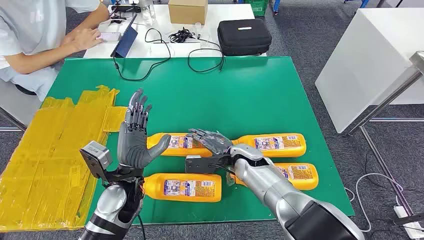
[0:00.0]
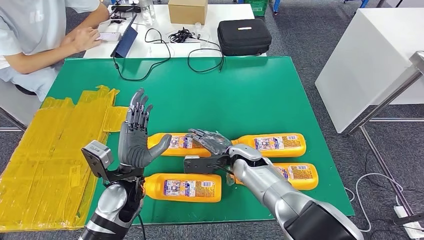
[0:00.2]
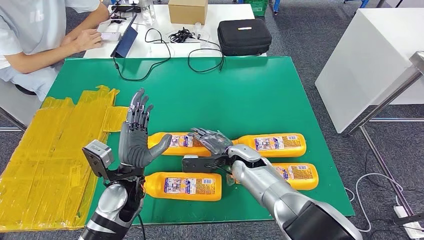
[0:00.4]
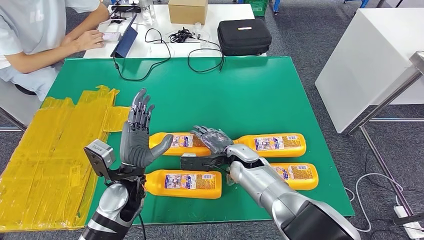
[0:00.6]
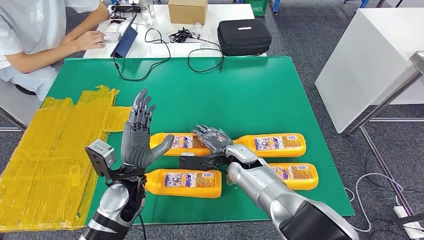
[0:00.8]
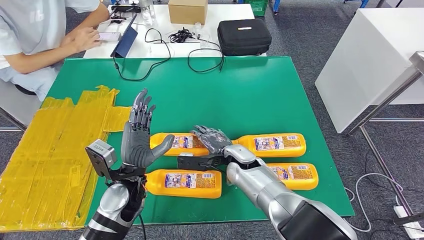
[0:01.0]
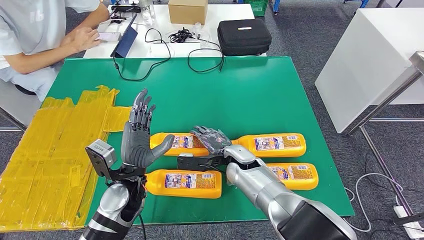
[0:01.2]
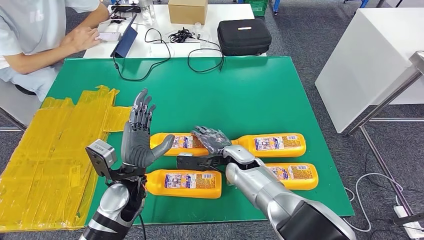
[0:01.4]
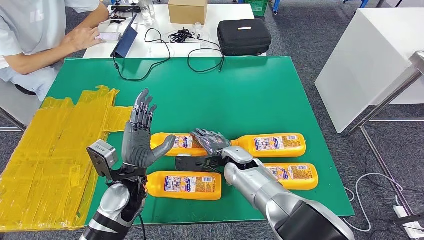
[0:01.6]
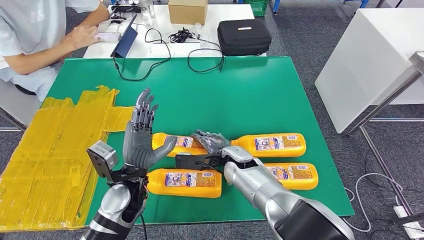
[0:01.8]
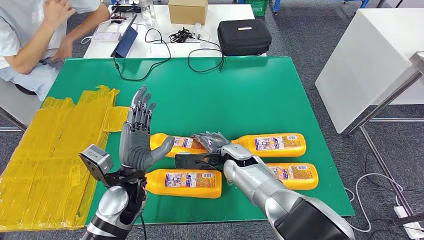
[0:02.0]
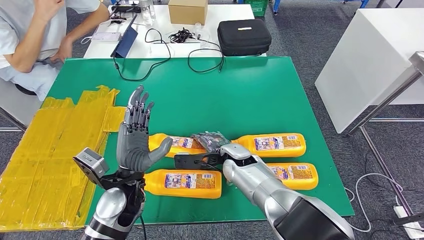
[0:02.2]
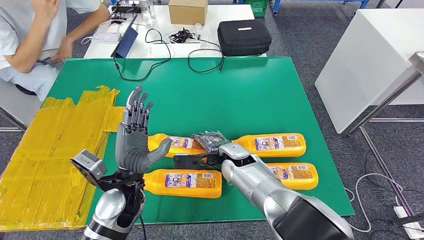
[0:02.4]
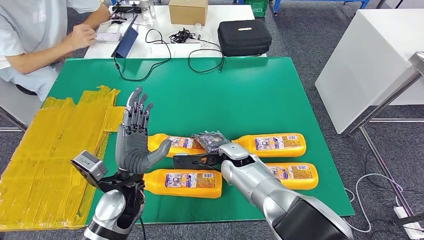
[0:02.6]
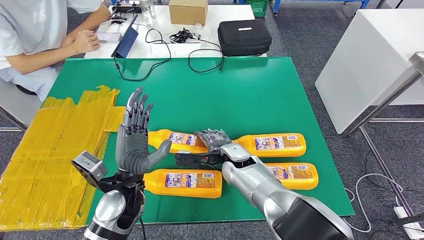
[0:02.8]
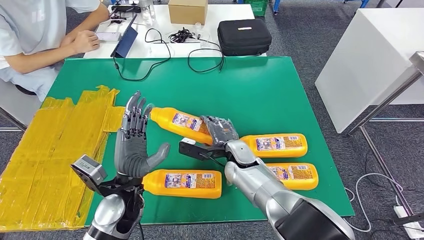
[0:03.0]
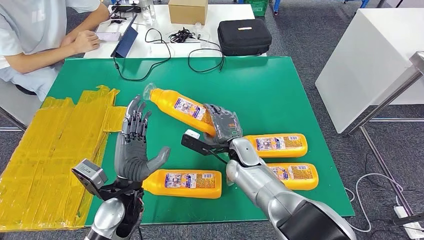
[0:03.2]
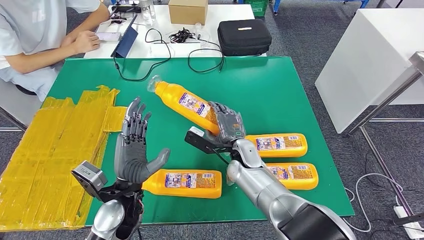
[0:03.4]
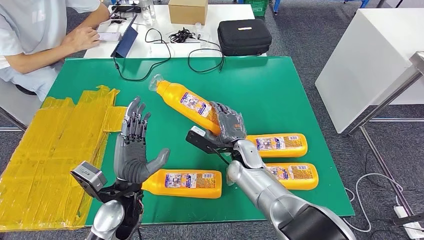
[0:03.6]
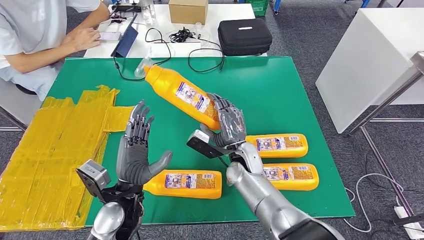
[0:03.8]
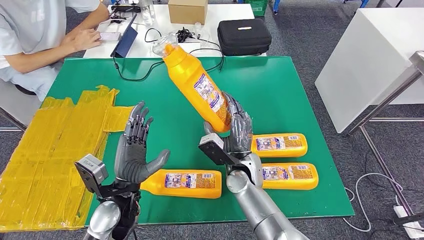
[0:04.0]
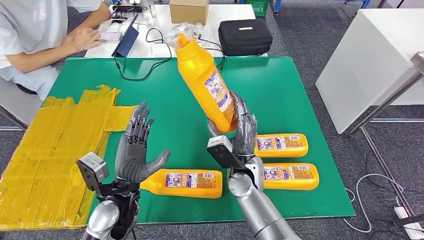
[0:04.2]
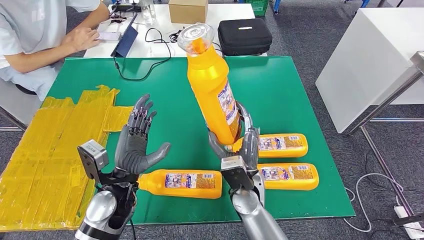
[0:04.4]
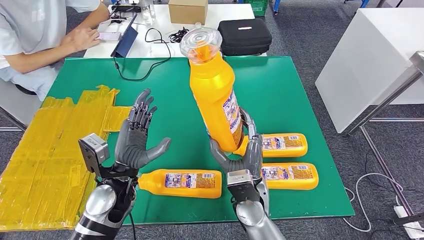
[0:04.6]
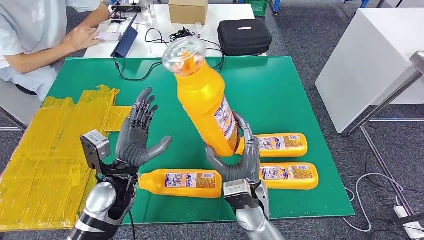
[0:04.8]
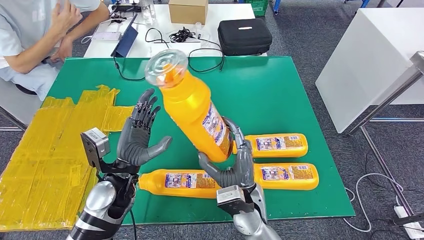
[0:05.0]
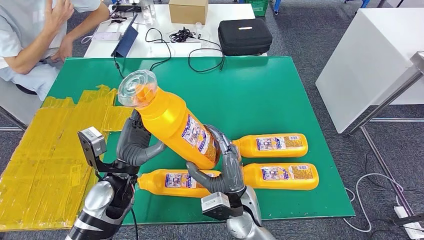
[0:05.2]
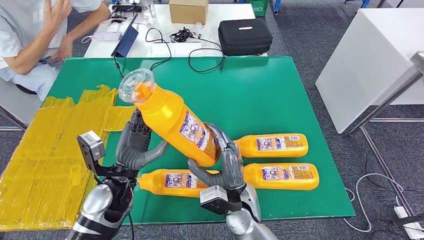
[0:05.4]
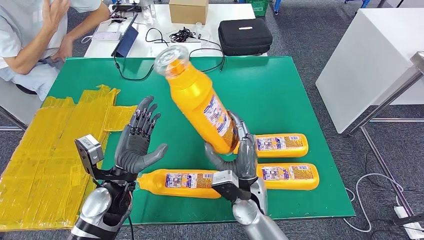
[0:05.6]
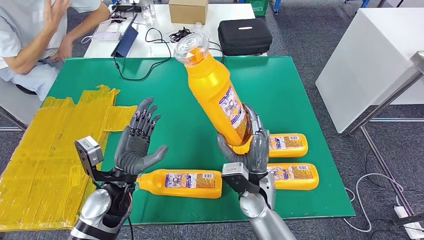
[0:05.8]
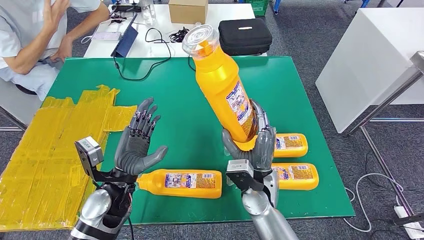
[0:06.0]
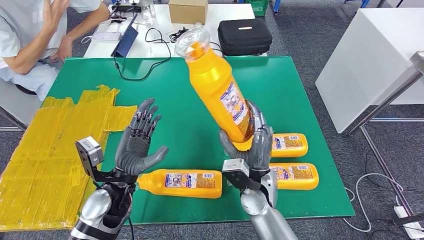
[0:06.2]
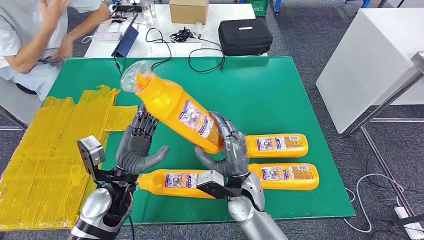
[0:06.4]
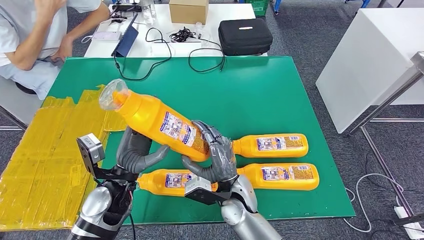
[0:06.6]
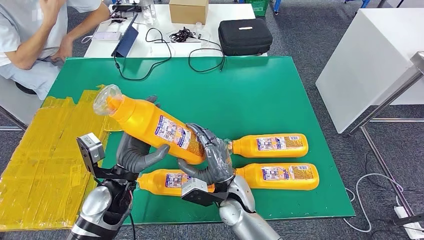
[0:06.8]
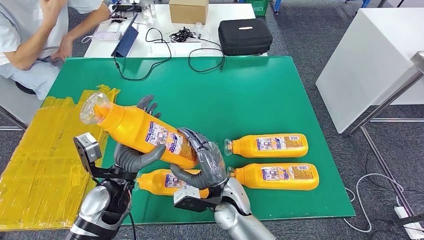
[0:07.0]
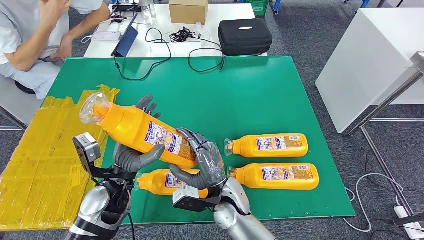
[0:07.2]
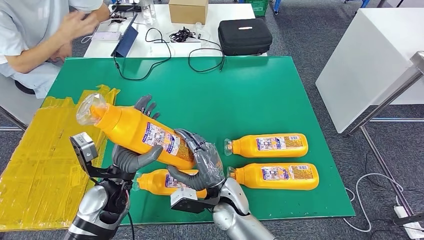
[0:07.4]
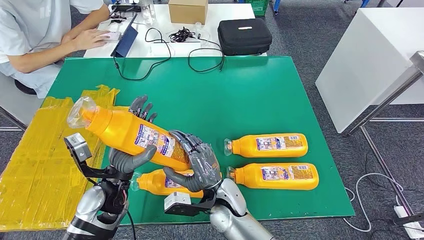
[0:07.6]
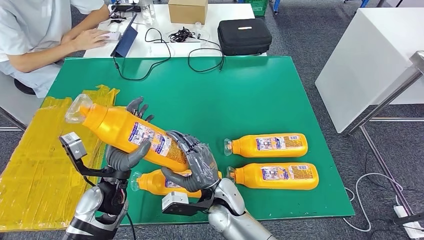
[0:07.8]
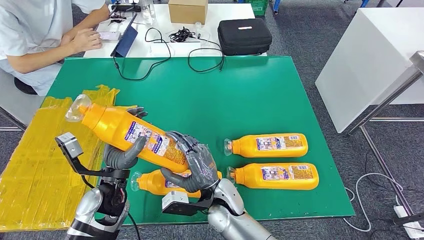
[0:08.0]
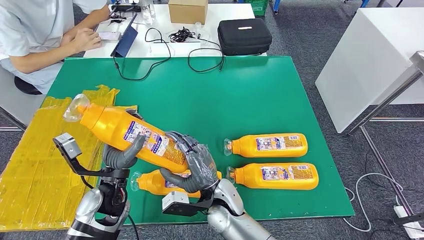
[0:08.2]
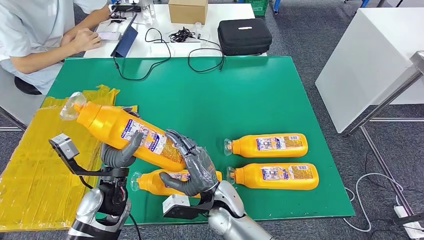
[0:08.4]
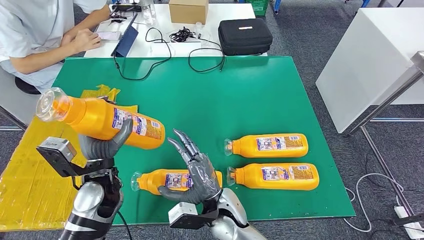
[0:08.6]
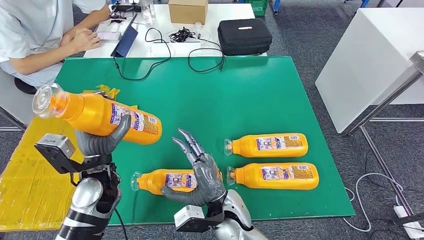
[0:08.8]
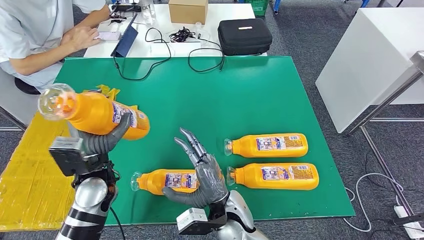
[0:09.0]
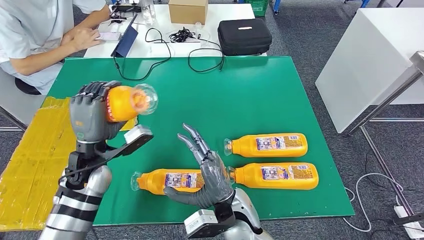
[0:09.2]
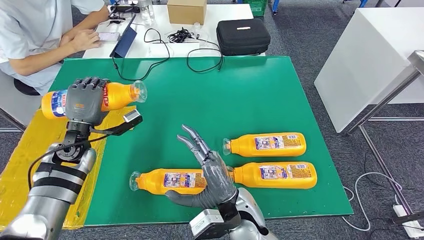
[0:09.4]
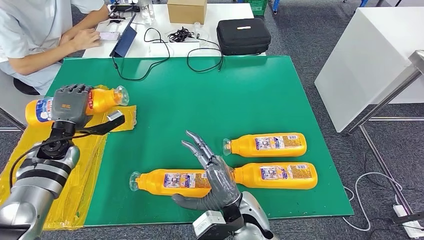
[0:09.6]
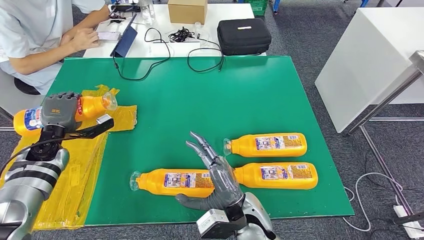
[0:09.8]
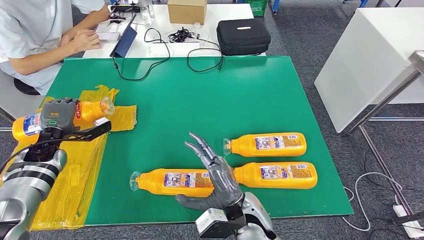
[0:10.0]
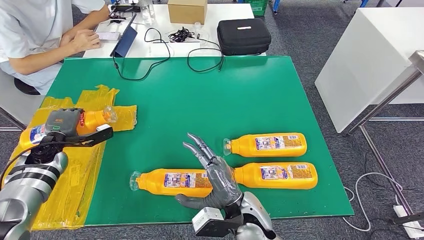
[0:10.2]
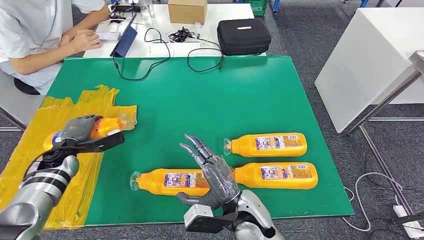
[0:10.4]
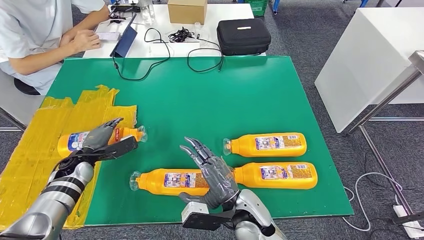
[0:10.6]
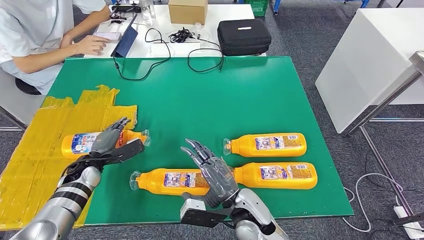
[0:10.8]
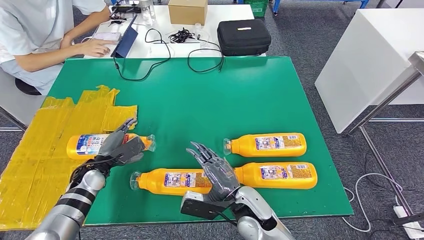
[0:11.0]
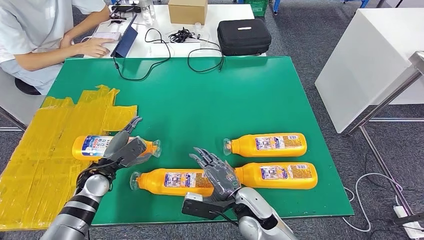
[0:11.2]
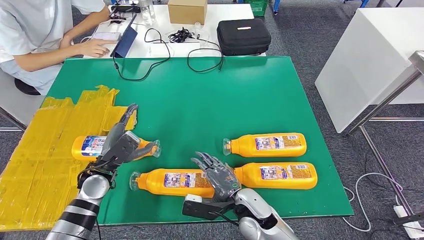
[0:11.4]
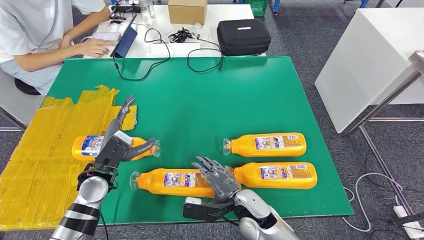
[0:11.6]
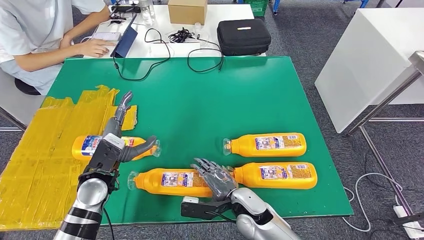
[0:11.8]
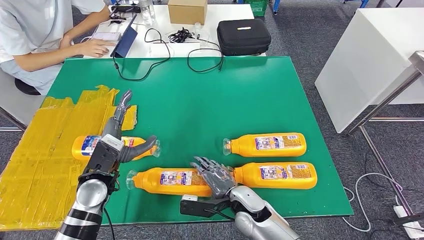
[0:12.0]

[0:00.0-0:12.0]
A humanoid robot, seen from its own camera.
Step, 0:00.0 to 0:04.4: Take the fast-moving consumer goods bottle from the table.
Step, 0:07.0 to 0:11.8: Flip the fast-moving consumer goods bottle to the front side.
0:01.6 to 0:03.0: The hands move only a little.
0:03.0 to 0:04.4: The right hand moves backward, approximately 10 cm.
0:04.4 to 0:06.0: The hands make only small movements.
0:09.0 to 0:10.4: The left hand goes approximately 20 cm to the left, forward and downward.
0:10.4 to 0:12.0: The left hand heads to the right and backward, covering roughly 20 cm. Meanwhile the right hand moves downward, about 5 cm.

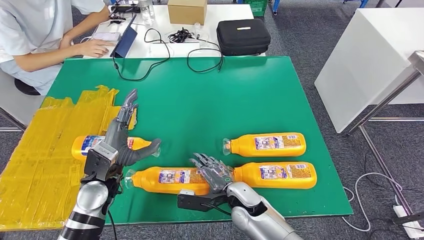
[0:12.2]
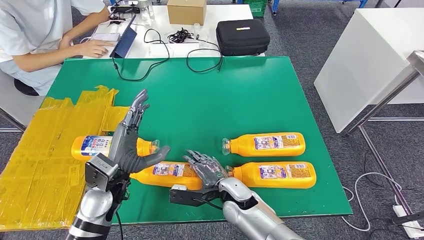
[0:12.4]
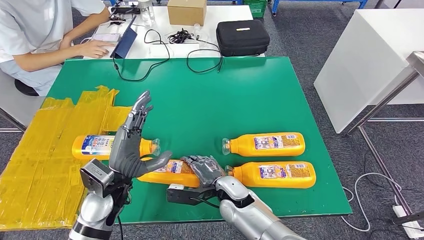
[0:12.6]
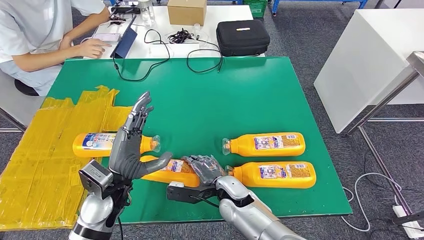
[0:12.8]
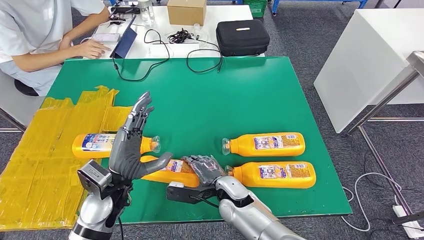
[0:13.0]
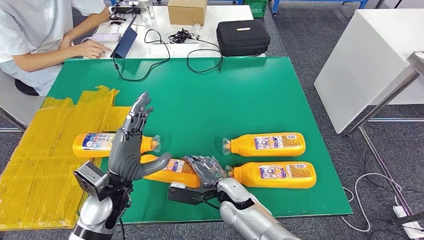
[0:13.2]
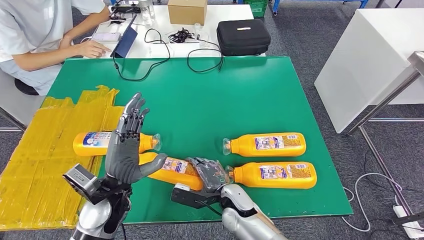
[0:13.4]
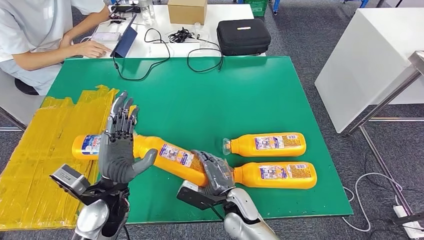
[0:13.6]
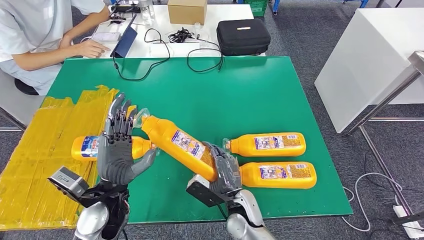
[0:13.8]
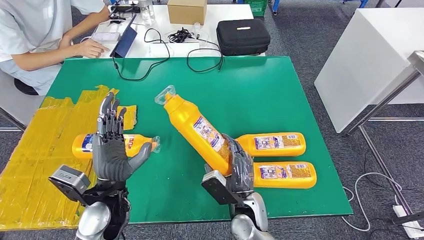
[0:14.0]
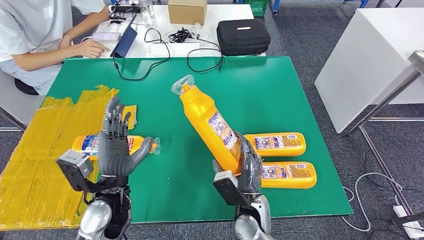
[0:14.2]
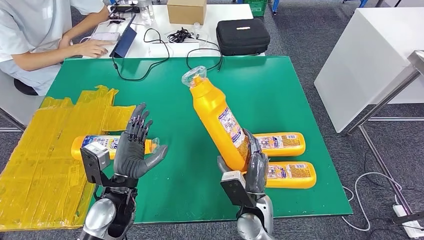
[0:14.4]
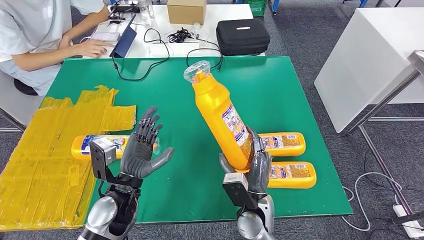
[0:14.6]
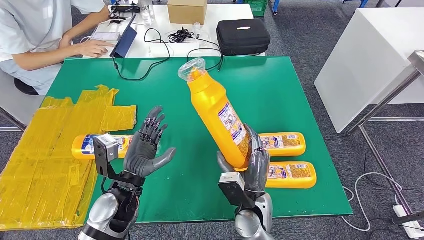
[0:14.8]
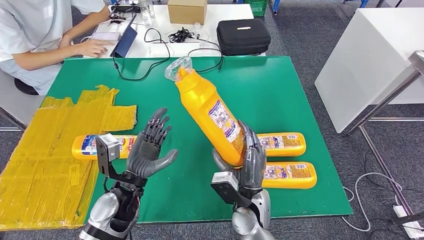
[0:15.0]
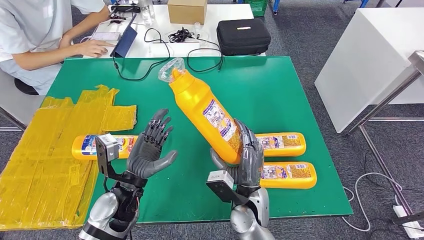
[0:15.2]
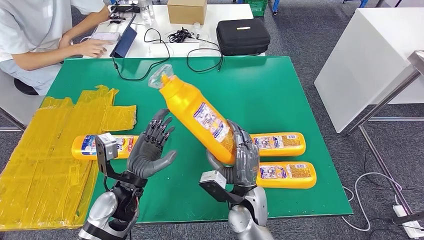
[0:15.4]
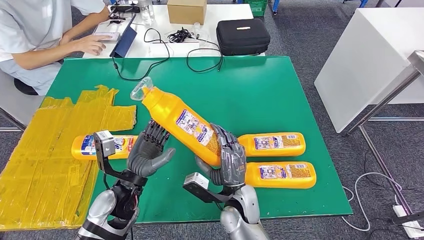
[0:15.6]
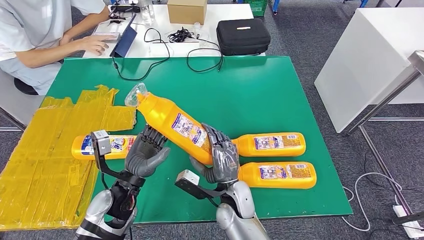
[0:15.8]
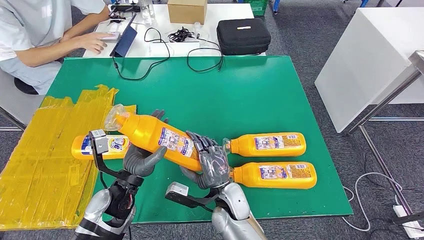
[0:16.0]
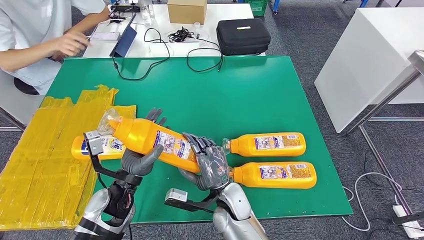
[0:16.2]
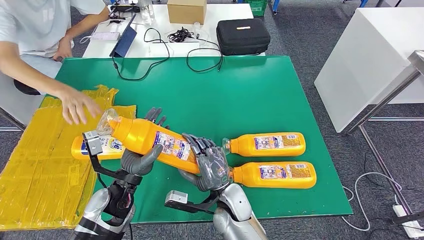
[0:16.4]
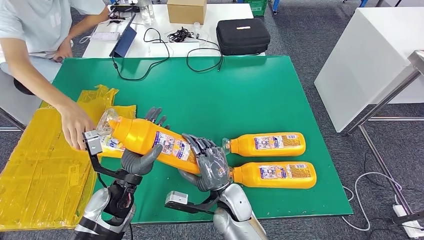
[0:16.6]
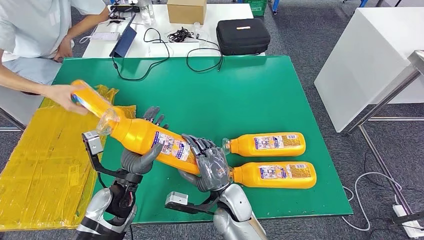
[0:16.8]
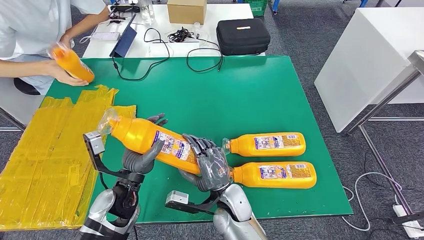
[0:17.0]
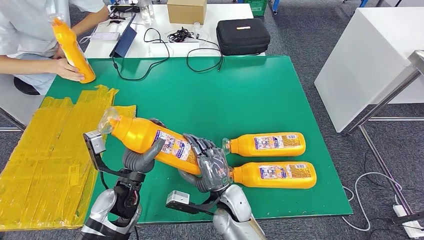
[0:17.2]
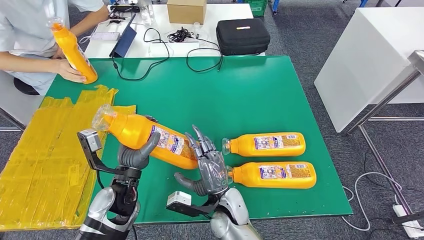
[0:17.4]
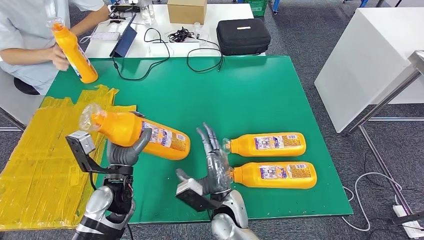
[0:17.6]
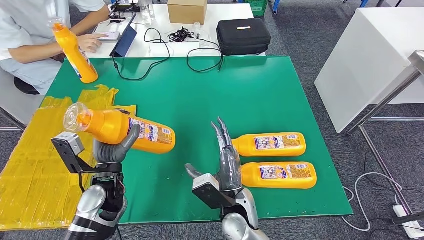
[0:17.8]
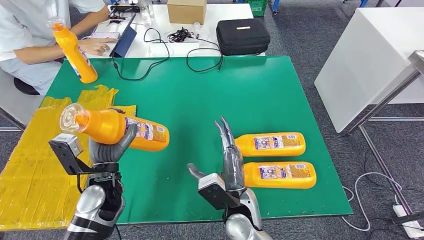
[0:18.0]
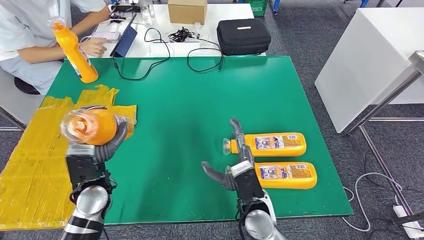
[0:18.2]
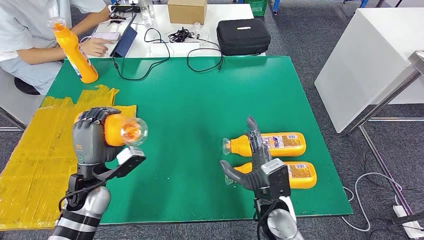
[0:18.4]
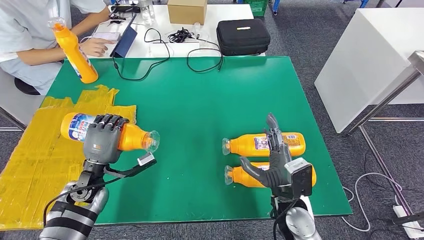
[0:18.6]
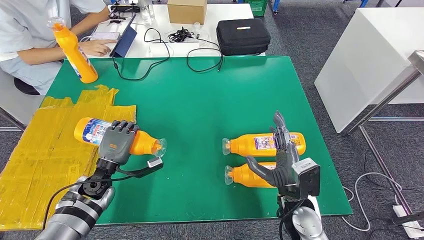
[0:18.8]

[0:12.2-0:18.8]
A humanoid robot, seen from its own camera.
Step, 0:12.6 to 0:16.2: Pick up the fast-moving consumer goods bottle from the table.
0:12.2 to 0:13.8: The left hand moves about 5 cm.
0:15.4 to 0:17.2: The right hand ends up some 5 cm from where it was.
